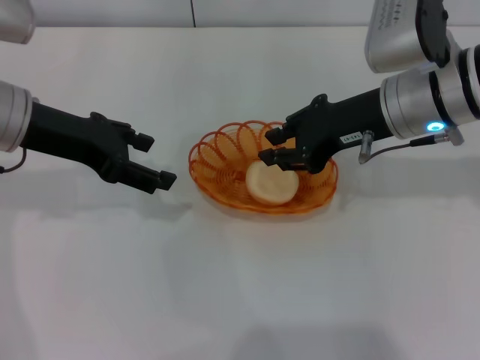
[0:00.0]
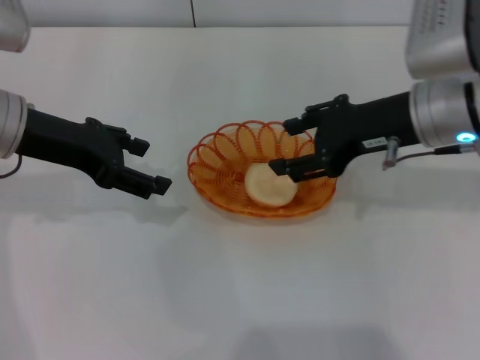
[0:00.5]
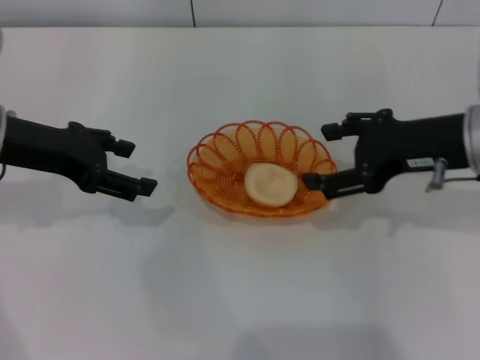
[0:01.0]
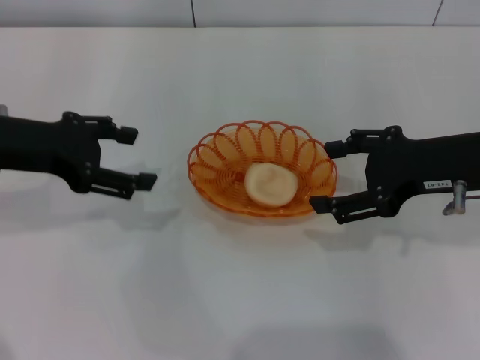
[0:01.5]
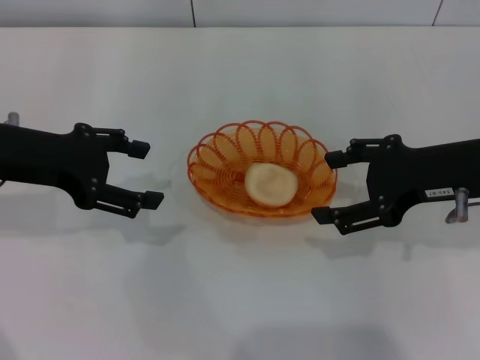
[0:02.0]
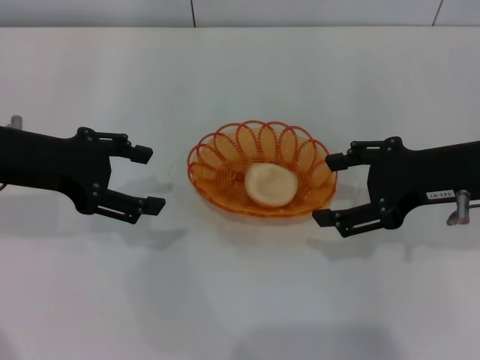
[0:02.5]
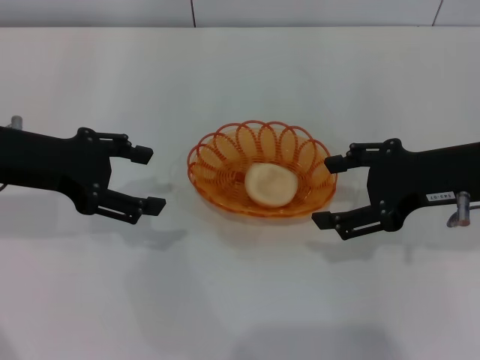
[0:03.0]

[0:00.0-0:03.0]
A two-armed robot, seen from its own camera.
0:00.0 to 0:01.5: The right gripper is displaced to the right and backward by about 10 cm, and opens.
0:01.5 to 0:03.0: The grippers make only small movements.

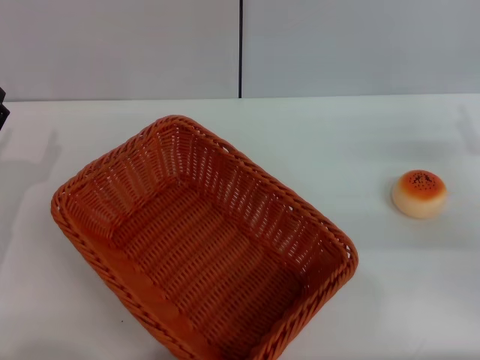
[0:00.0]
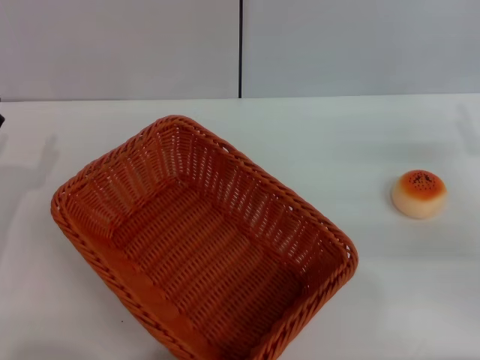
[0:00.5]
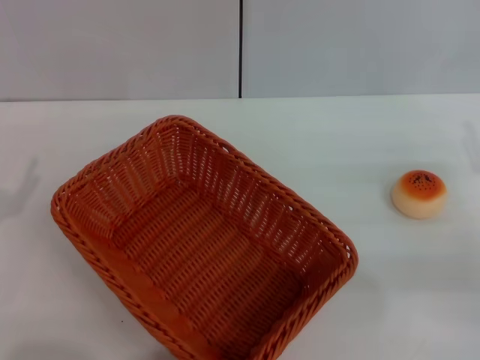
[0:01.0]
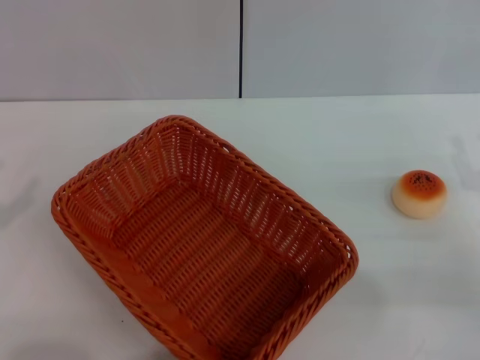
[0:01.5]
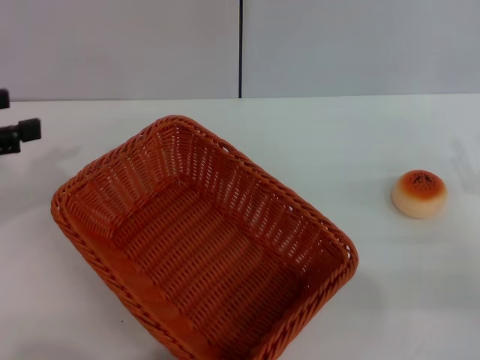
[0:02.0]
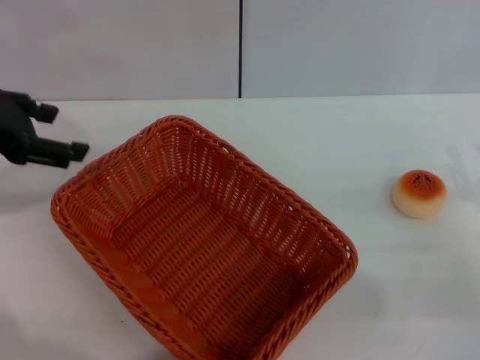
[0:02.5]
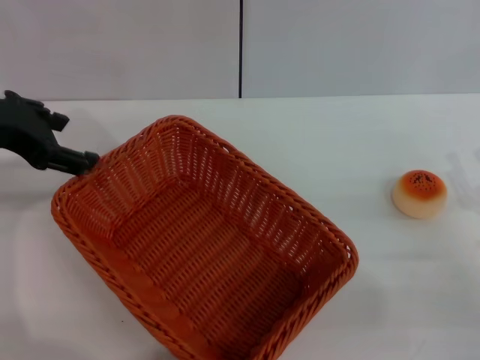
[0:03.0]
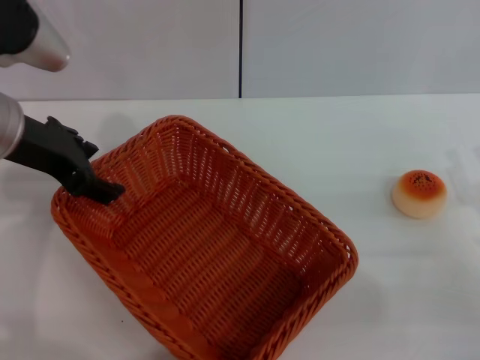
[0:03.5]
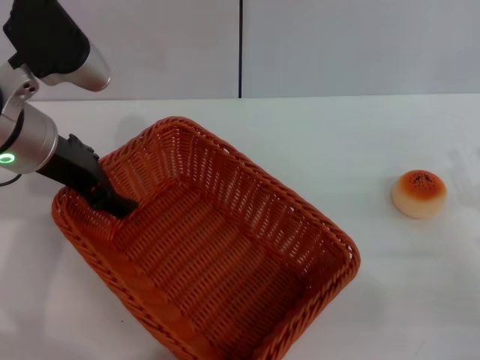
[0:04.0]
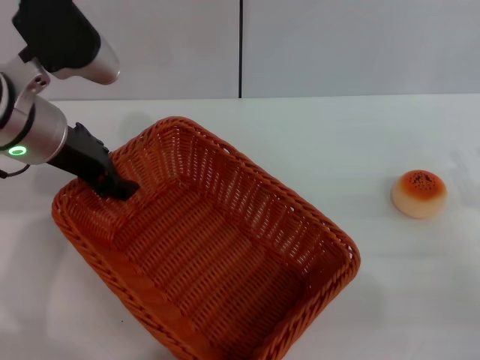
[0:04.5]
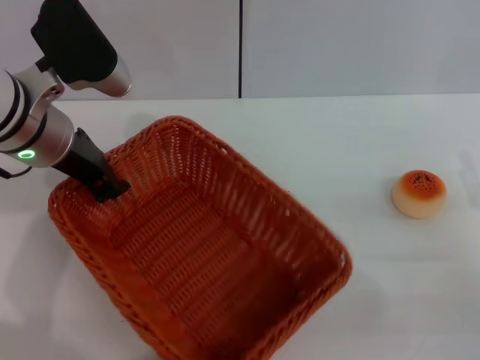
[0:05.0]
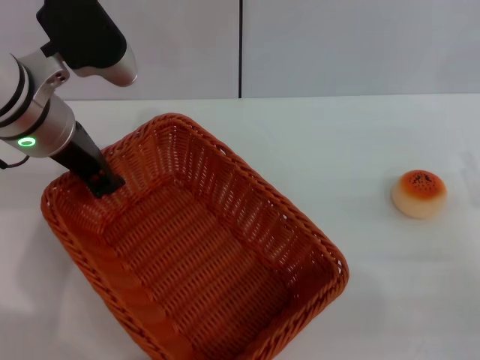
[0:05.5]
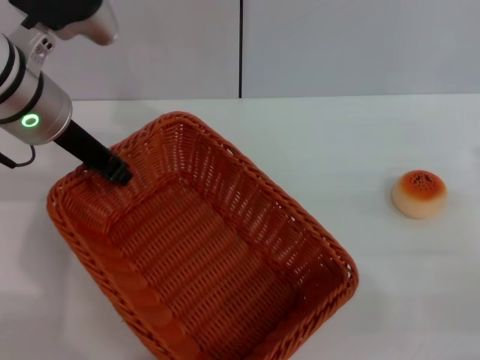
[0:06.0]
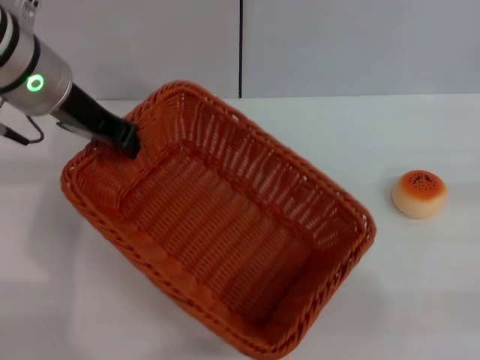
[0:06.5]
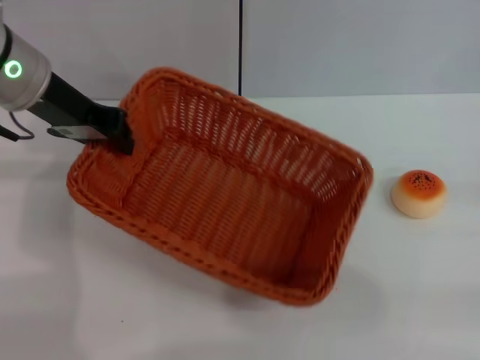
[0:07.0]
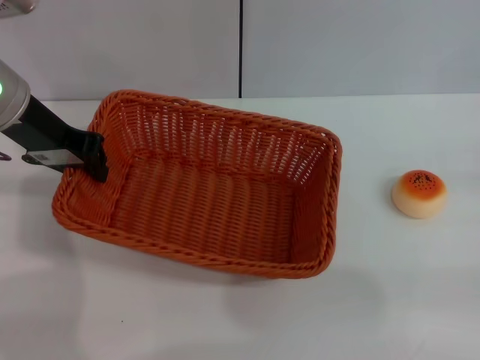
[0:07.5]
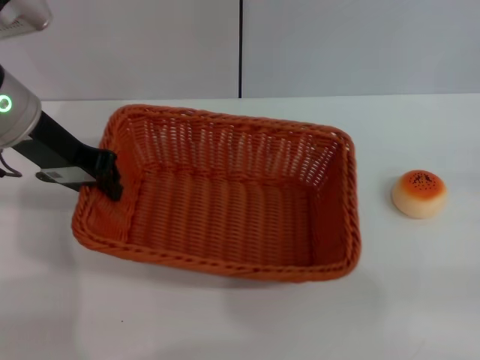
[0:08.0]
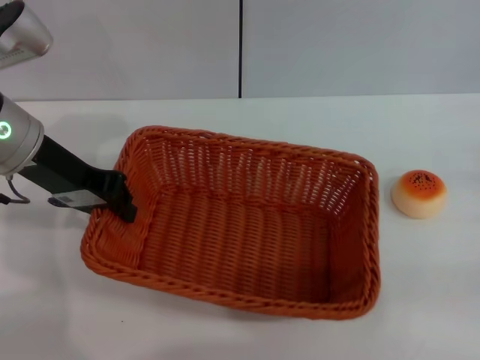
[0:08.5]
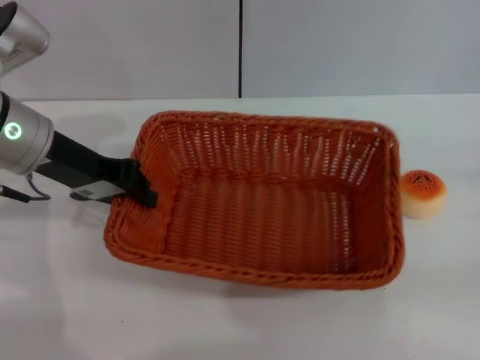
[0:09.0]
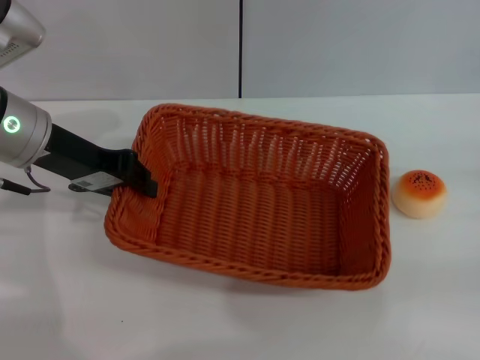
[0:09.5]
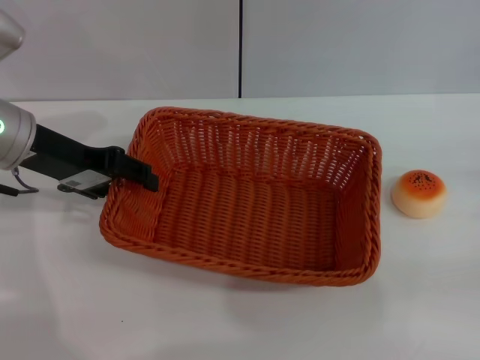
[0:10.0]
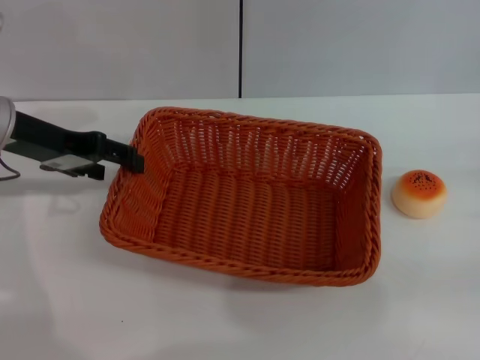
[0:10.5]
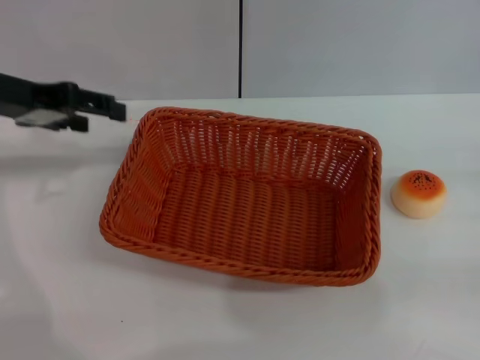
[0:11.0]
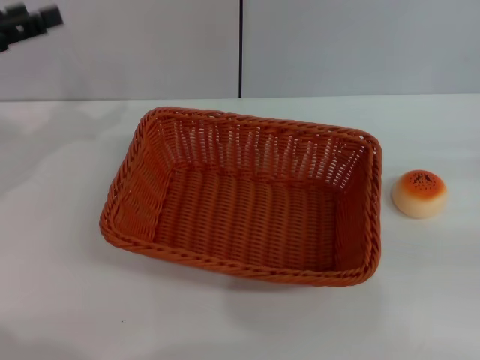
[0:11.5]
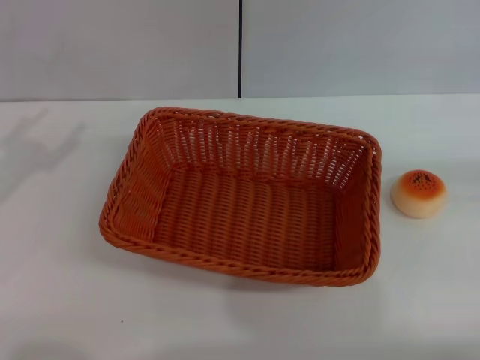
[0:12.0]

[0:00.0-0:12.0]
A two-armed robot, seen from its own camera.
Step, 0:00.0 to 0:10.5: Move the basket to the center of view with the left gripper.
0:00.0 to 0:02.0: The left gripper moves upward, some 15 cm. The right gripper is displaced backward by approximately 5 cm.
0:02.0 to 0:04.0: The left gripper shifts approximately 15 cm to the right and forward.
0:04.0 to 0:06.0: The left gripper closes up.
0:06.0 to 0:08.0: The right gripper goes about 10 cm to the right.
0:08.0 to 0:10.0: The left gripper opens.
0:10.0 to 0:12.0: The left gripper heads to the left and backward, covering some 15 cm, and opens its fingers, while the right gripper shifts some 15 cm upward and to the right.

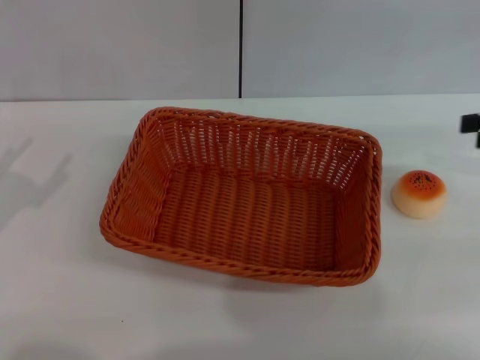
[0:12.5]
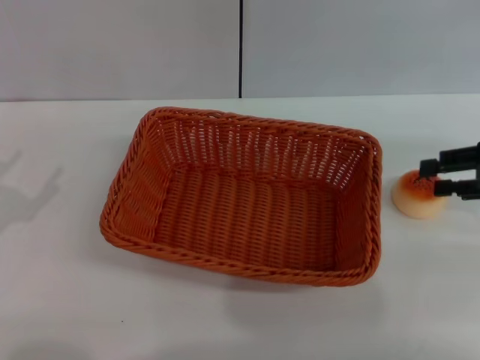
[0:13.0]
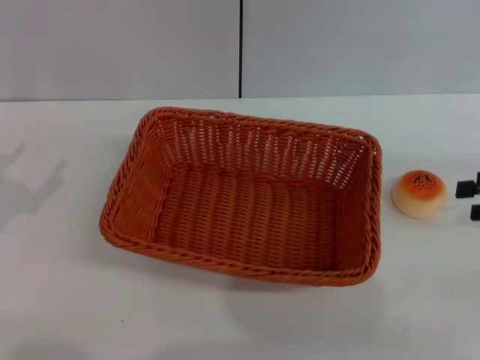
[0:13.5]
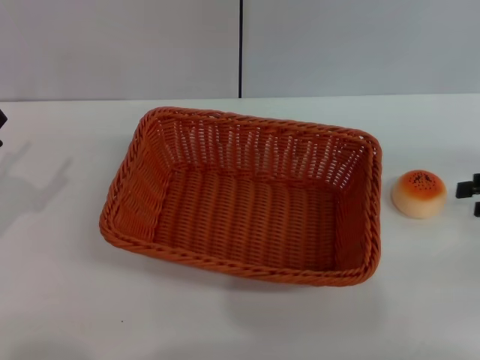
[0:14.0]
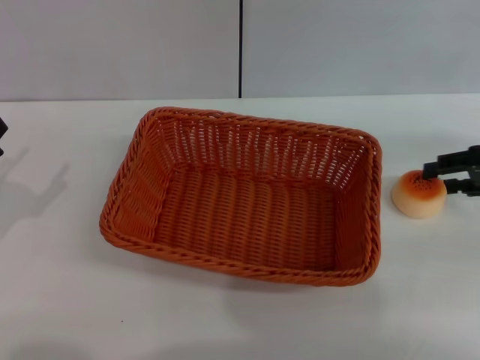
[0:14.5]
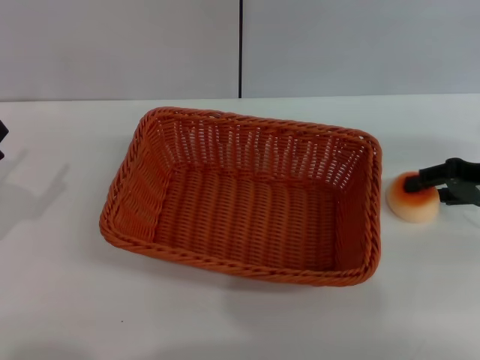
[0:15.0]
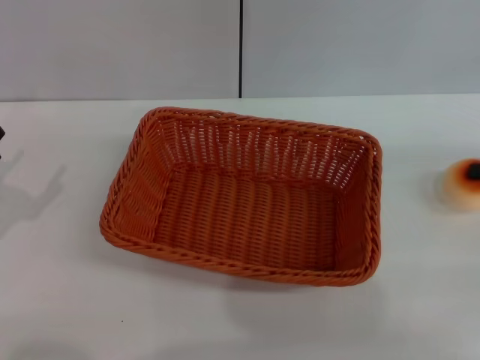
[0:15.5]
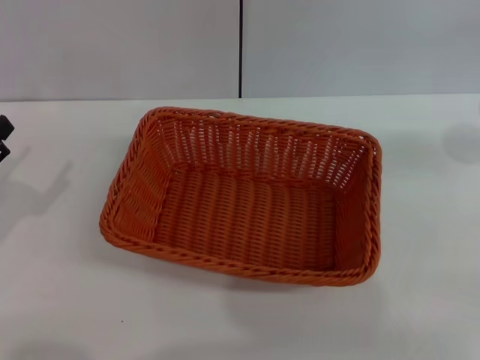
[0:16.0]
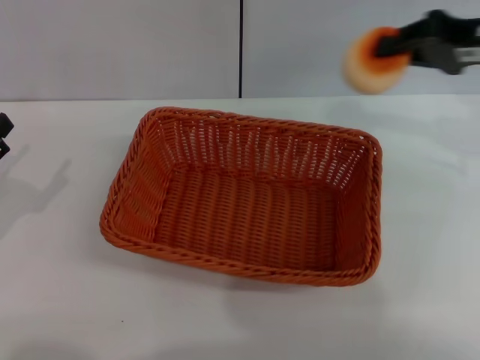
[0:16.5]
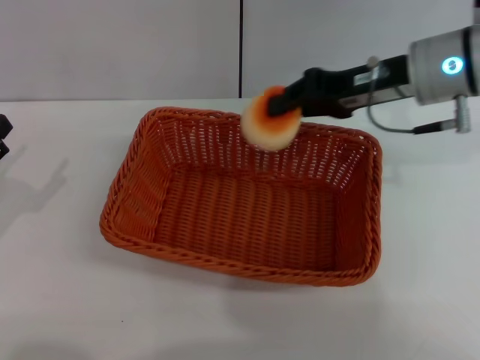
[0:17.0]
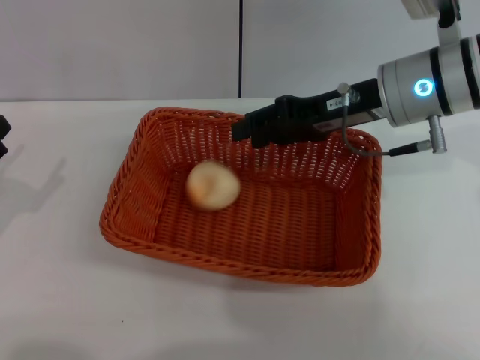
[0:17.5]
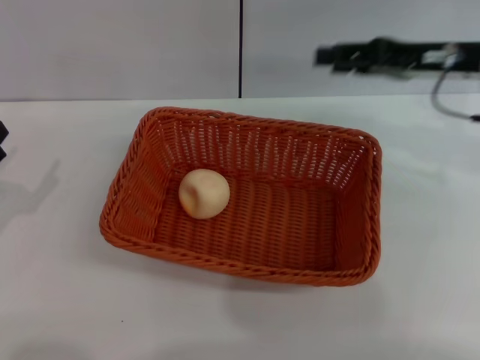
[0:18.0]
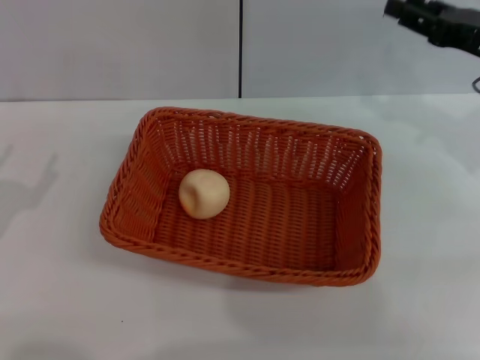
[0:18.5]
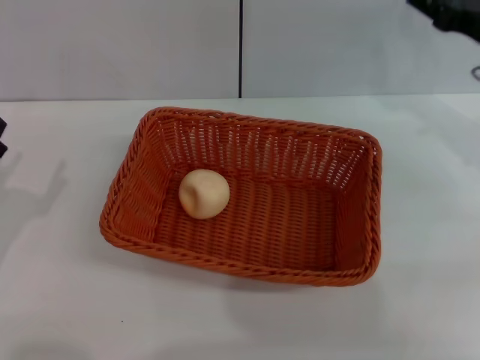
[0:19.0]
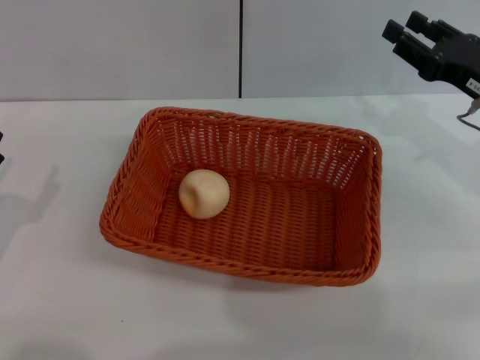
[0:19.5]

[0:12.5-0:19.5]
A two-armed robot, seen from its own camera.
Step, 0:12.5 to 0:15.0: Pick up the egg yolk pastry with the right gripper.
Step, 0:15.5 to 0:17.5: Place the egg yolk pastry into the basket with the right gripper.
0:12.5 to 0:14.5: The right gripper moves downward, about 5 cm.
0:14.5 to 0:16.0: The right gripper heads upward, covering roughly 10 cm, and closes its fingers.
0:16.0 to 0:17.5: The right gripper travels to the left by approximately 25 cm.
0:17.5 to 0:19.5: The right gripper shifts some 15 cm to the right and downward, and opens up.
